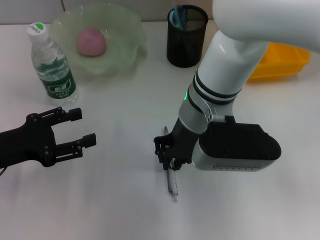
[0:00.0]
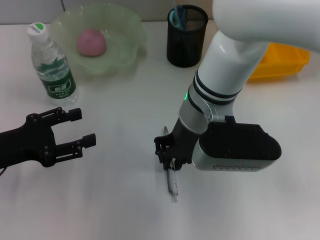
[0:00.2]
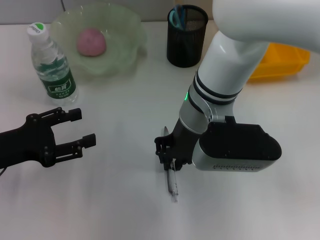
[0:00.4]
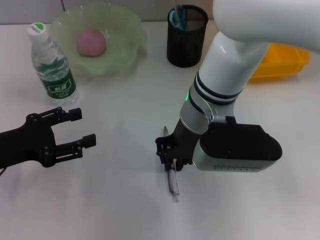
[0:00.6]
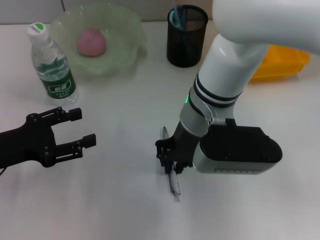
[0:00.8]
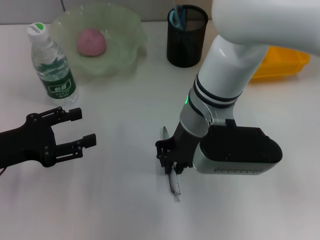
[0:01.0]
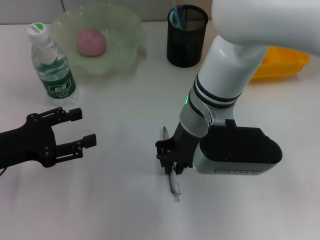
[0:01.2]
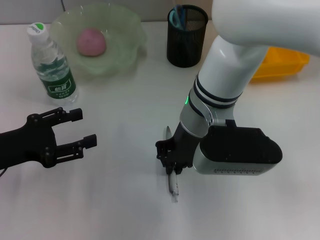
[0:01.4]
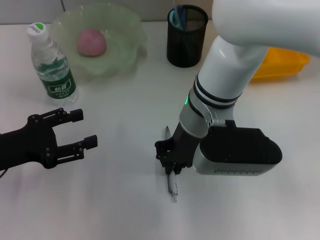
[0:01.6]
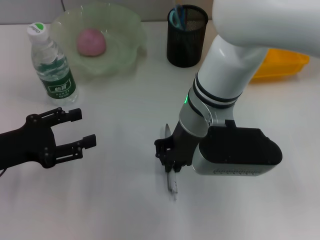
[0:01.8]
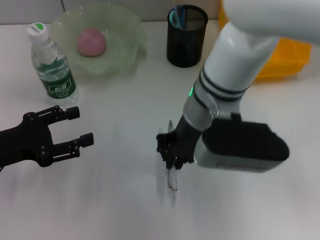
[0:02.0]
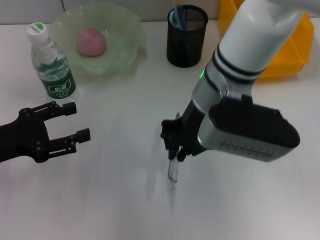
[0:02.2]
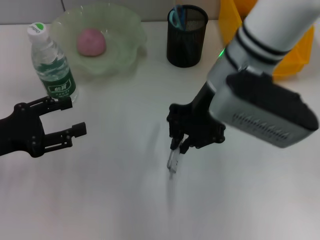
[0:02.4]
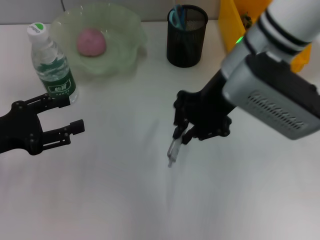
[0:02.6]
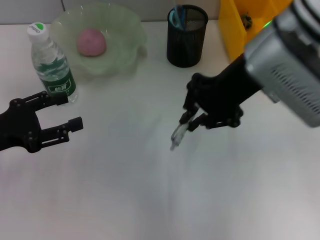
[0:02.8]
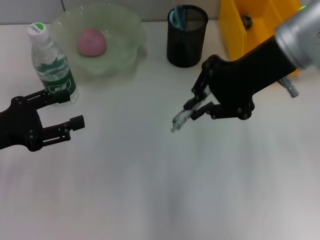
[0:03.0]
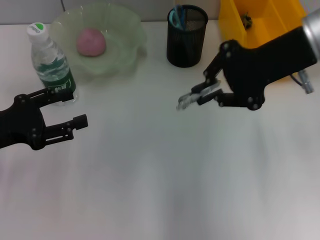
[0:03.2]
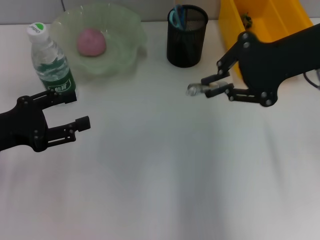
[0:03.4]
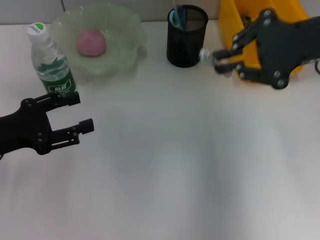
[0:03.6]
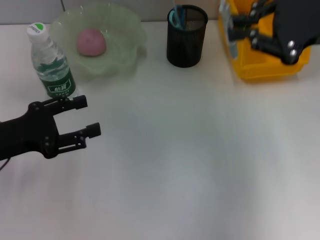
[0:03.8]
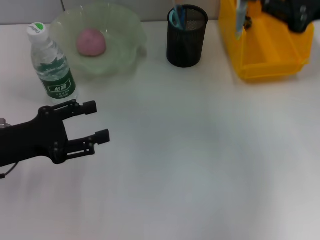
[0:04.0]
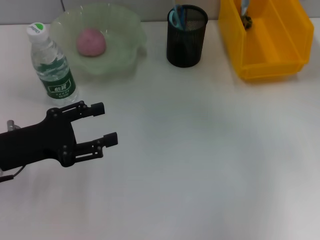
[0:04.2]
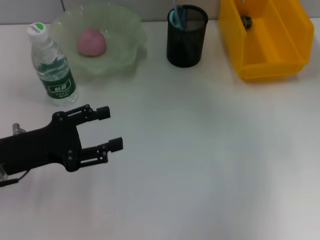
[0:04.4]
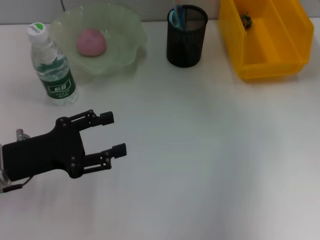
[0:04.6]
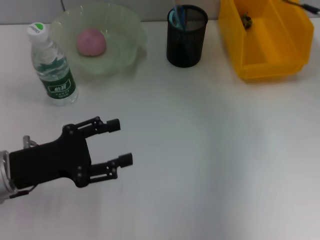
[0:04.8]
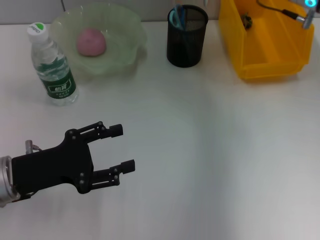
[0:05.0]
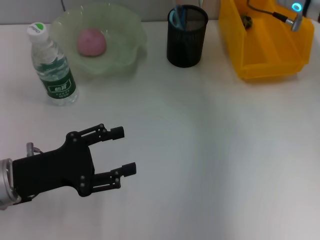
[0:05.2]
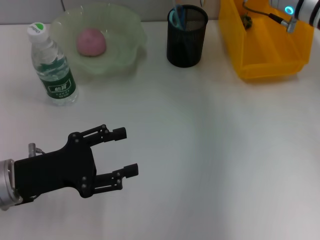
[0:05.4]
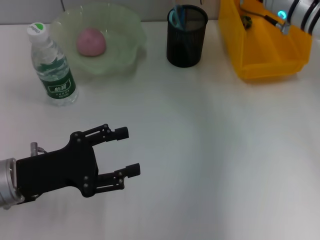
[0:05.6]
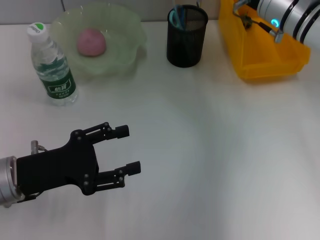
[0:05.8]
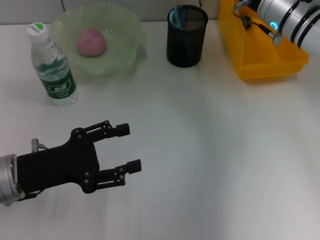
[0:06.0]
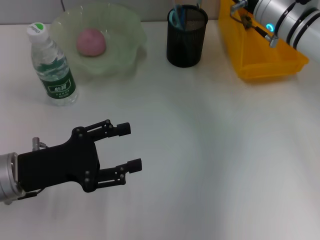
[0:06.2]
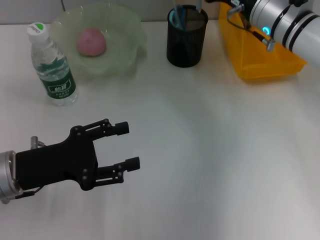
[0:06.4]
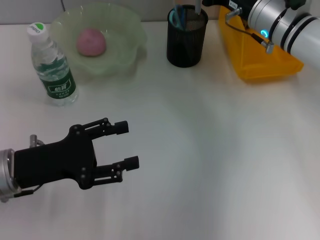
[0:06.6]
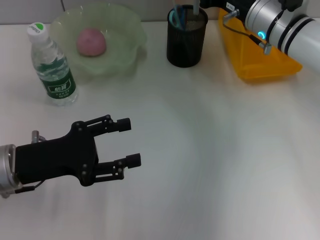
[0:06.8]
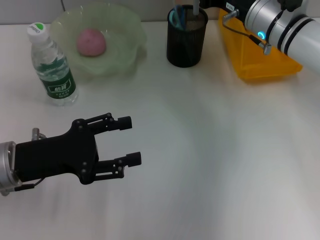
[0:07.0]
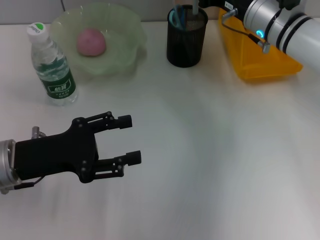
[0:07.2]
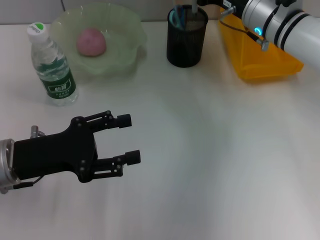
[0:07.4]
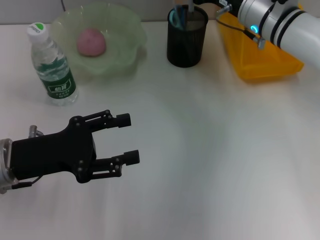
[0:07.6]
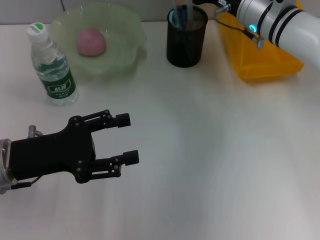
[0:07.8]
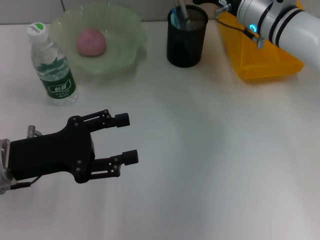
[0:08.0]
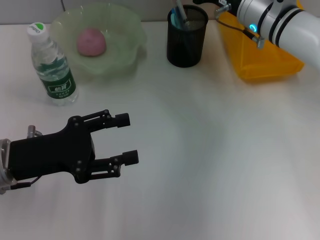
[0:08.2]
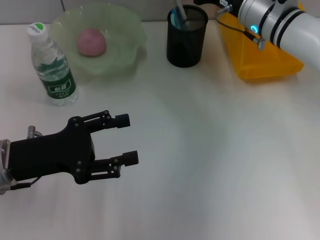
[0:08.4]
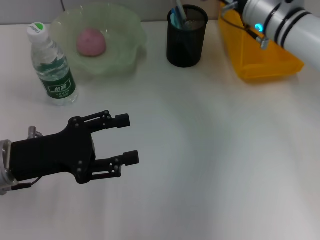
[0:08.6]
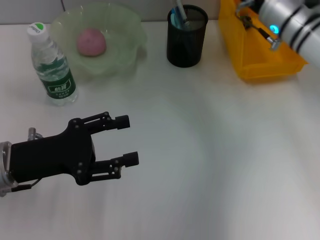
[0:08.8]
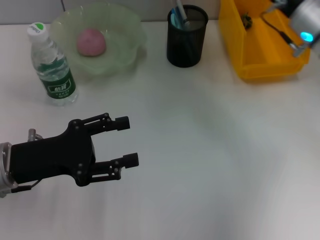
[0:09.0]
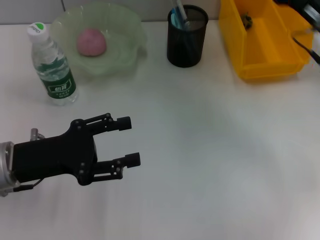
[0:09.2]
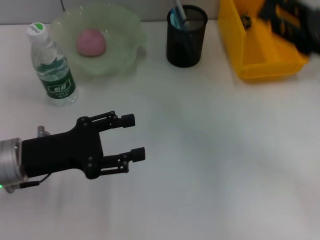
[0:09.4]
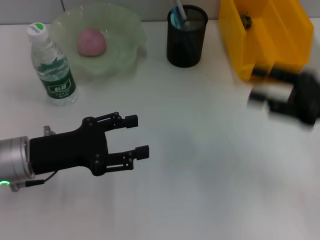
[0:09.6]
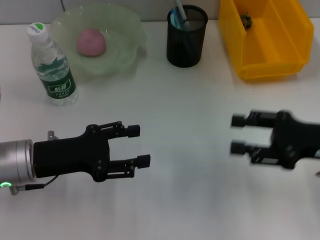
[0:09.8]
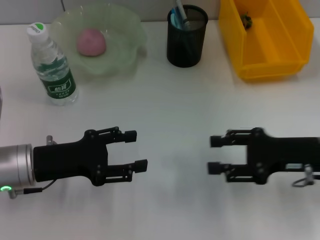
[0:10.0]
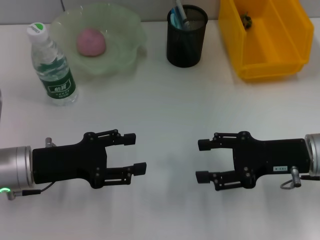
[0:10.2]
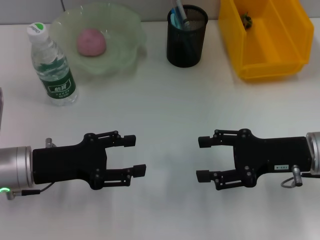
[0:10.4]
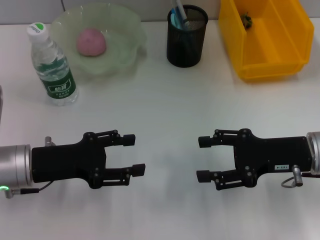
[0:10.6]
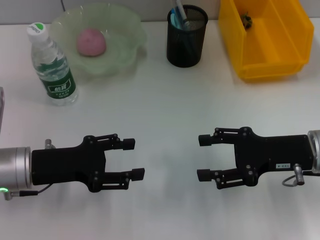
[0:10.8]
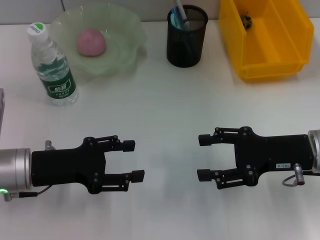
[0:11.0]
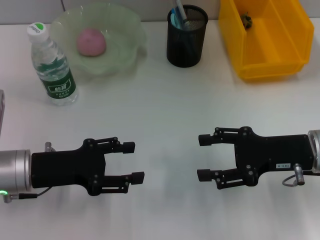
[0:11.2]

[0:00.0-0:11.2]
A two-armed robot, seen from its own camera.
Step, 0:01.6 to 0:08.2: Place the gray spring-action pen into the pen holder with the right hand.
0:00.0 to 0:01.6: Both grippers stay about where they are.
0:01.6 to 0:03.2: The right gripper is displaced to the right and upward by roughly 20 cm.
0:03.2 to 0:04.8: The right gripper goes some 10 cm forward. Meanwhile the left gripper goes approximately 5 cm to the right.
0:04.8 to 0:06.4: The right gripper moves downward and to the left, roughly 10 cm.
0:06.4 to 0:08.0: There are only small adjustments of the grippers.
0:08.0 to 0:09.6: The right gripper shifts about 20 cm backward and to the right, and opens up.
0:09.6 to 0:11.2: The right gripper goes roughly 5 cm to the left.

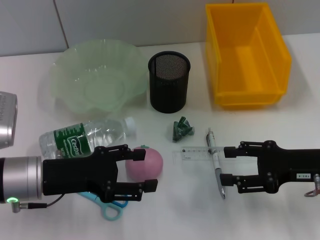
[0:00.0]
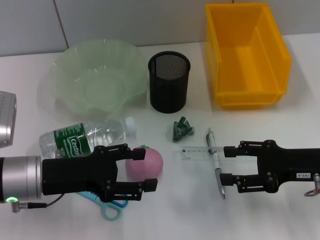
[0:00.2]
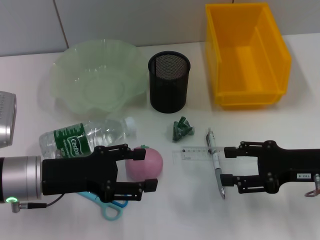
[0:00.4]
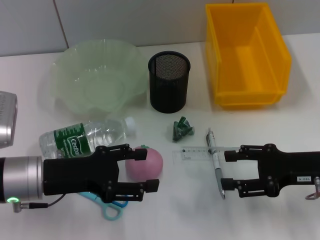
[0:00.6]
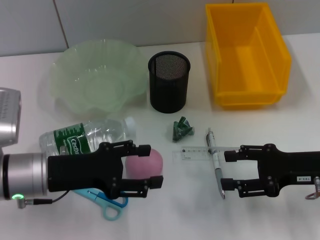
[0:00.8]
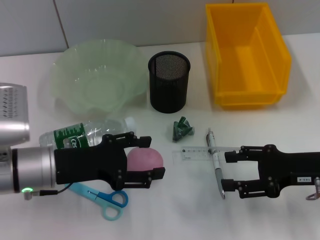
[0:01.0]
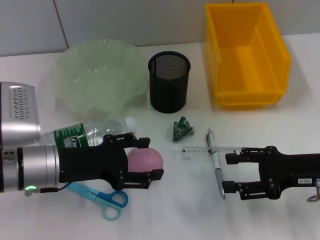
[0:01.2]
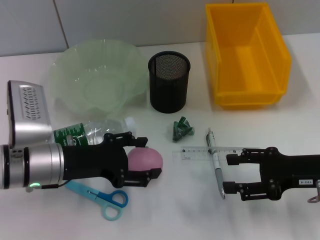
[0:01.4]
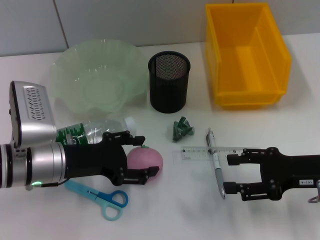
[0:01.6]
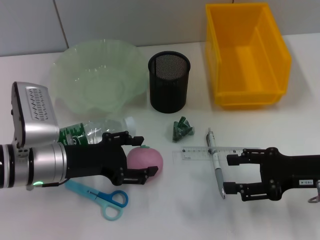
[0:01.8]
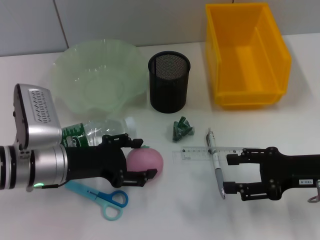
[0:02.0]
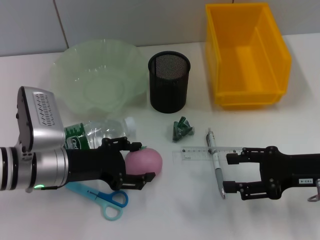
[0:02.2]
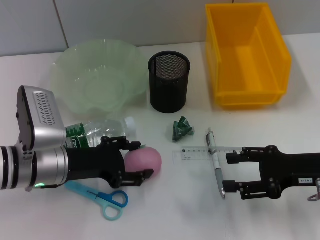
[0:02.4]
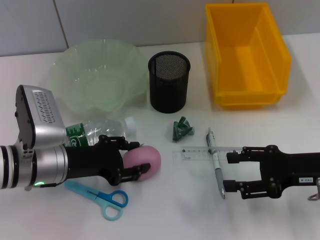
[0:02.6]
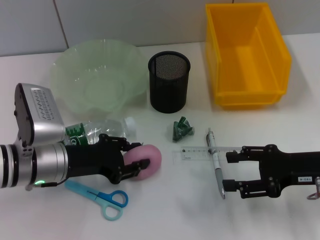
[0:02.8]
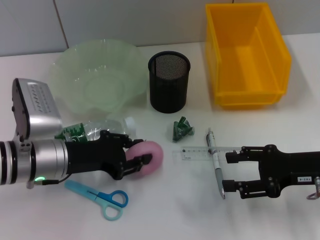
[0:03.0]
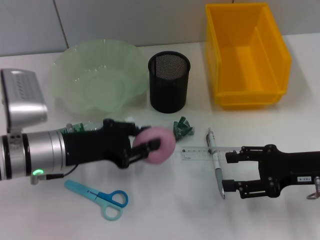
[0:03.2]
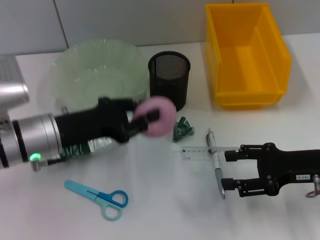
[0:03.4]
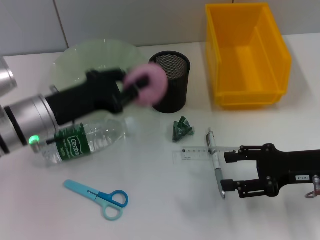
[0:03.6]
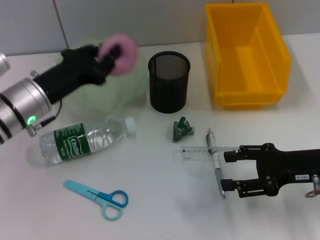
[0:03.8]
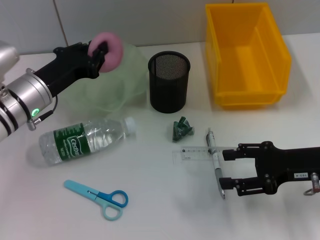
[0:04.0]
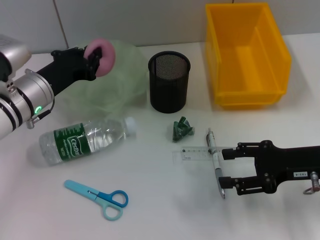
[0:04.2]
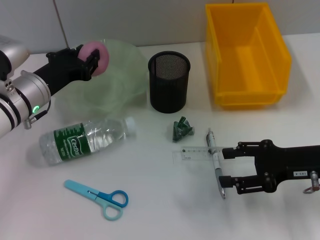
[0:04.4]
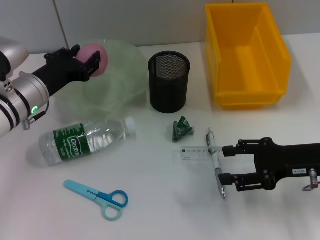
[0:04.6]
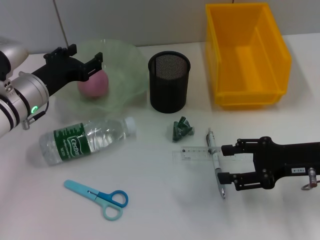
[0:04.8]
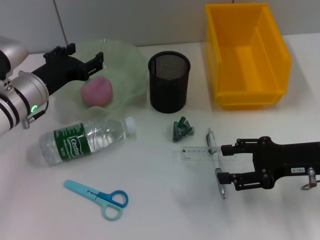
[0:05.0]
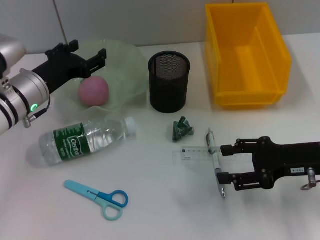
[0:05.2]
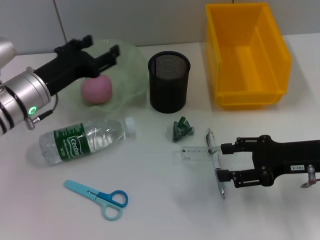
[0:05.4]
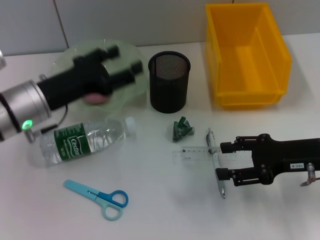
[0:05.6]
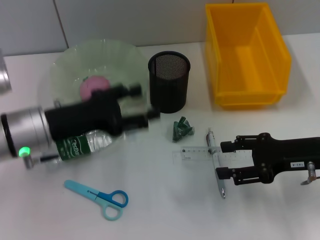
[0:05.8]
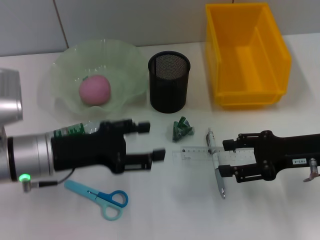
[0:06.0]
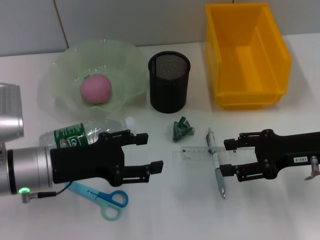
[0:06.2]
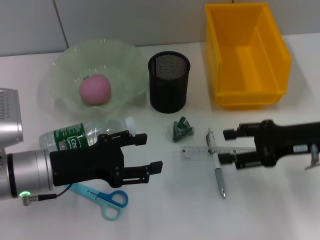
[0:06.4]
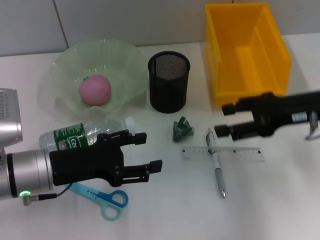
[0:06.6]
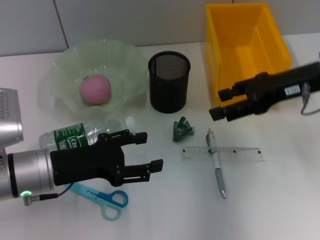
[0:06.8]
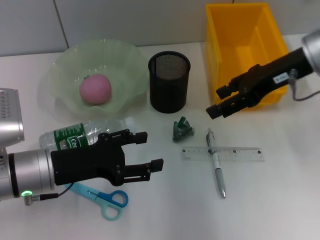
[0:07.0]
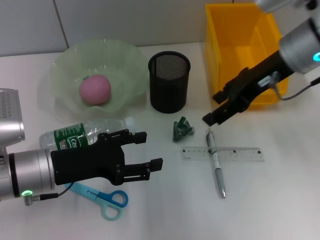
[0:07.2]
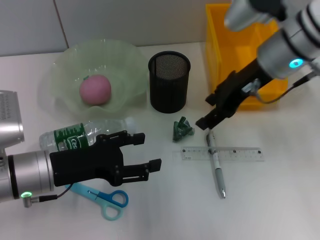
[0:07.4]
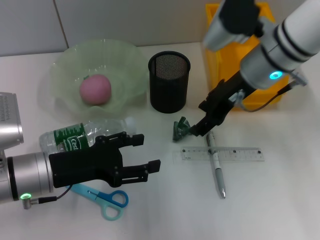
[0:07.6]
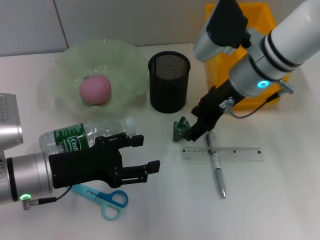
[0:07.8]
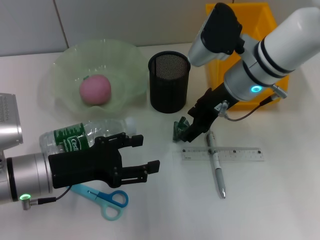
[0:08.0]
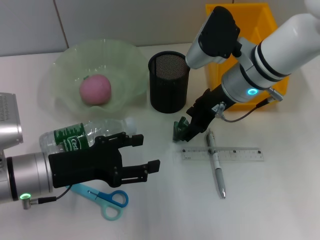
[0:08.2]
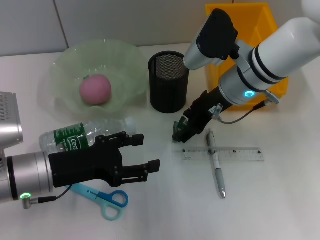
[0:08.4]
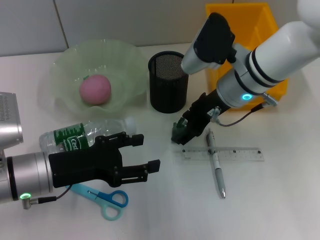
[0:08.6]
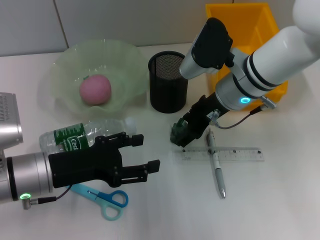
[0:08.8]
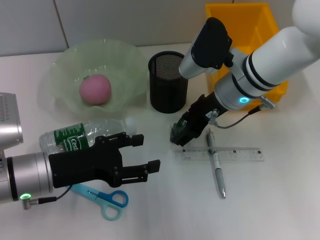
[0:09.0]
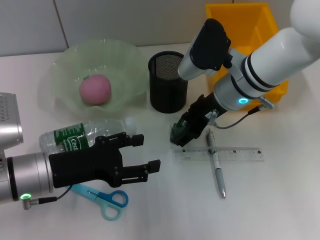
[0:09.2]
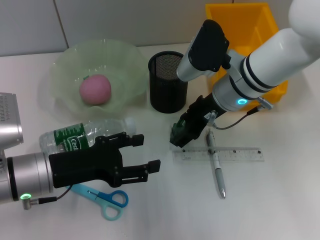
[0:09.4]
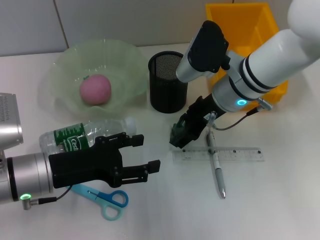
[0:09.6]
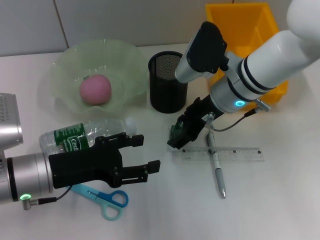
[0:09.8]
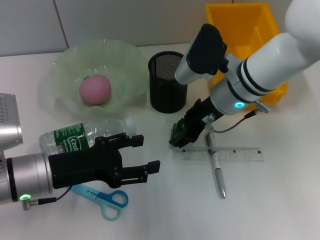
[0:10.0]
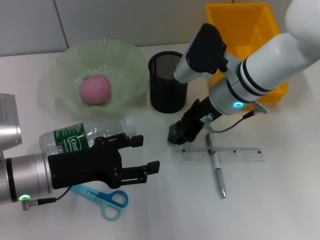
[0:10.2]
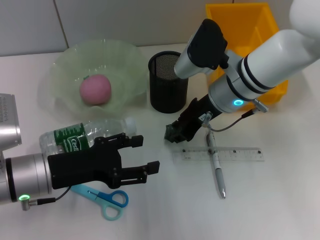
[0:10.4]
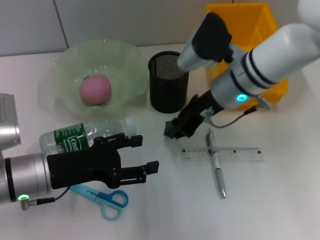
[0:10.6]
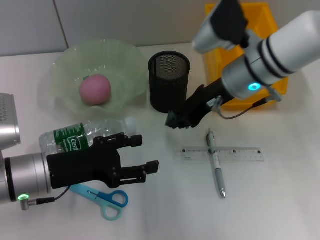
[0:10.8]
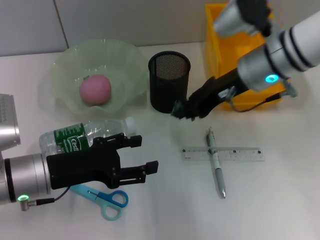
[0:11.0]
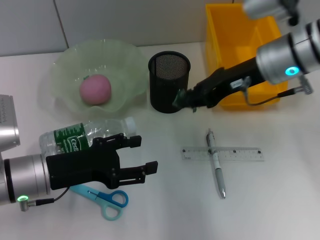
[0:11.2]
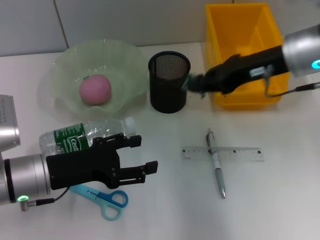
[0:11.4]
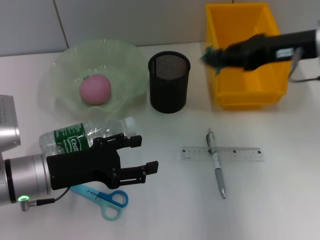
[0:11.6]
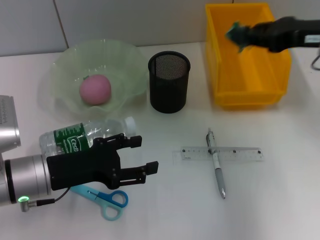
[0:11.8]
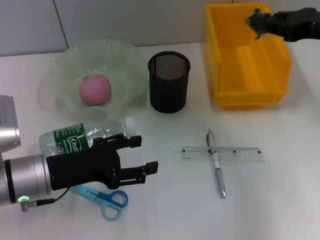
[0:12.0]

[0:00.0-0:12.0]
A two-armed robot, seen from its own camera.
Step, 0:00.0 to 0:02.6: Grab the peach with the left hand.
Step, 0:02.8 to 0:04.6: Place the peach into the fruit bowl with the left hand.
Step, 0:04.8 to 0:10.2: Grab the plastic with the right hand.
0:00.0 to 0:01.6: The grippers stay close to where they were, moving slightly.
0:01.6 to 0:03.0: The left gripper closes up.
0:03.0 to 0:04.4: The left gripper heads forward, covering about 10 cm.
0:04.4 to 0:06.0: The left gripper is displaced backward by approximately 10 cm, and opens up.
0:06.0 to 0:07.6: The right gripper is displaced to the left, forward and upward by approximately 20 cm.
0:07.6 to 0:09.0: The right gripper heads downward, covering about 5 cm.
0:09.0 to 0:10.4: The right gripper closes its fingers.
0:10.4 to 0:12.0: The right gripper is displaced to the right and upward by roughly 20 cm.
